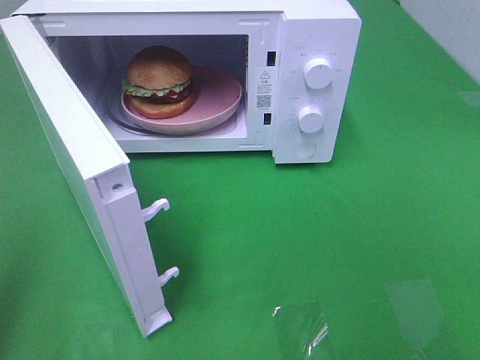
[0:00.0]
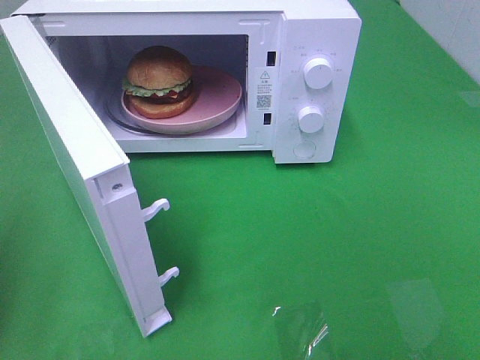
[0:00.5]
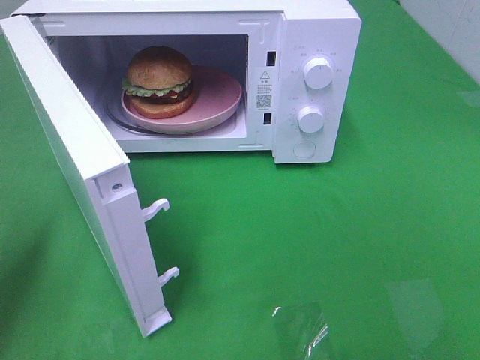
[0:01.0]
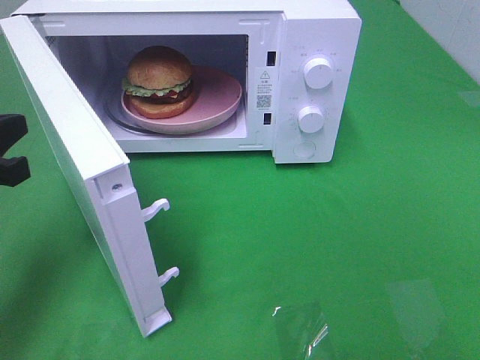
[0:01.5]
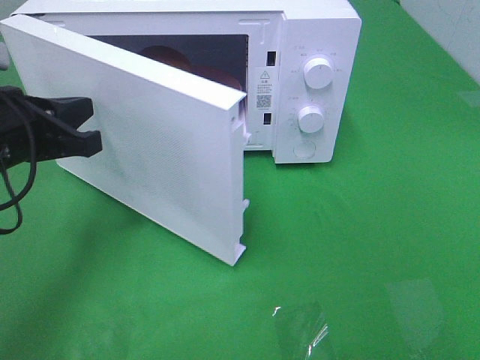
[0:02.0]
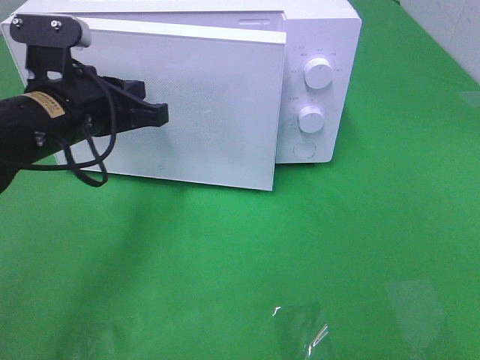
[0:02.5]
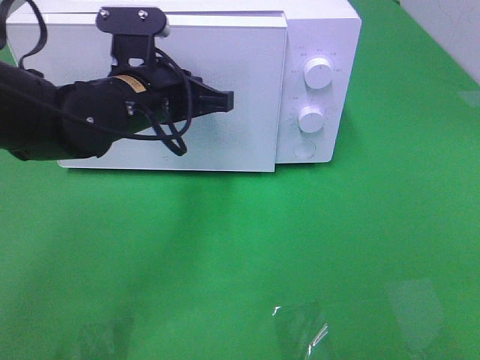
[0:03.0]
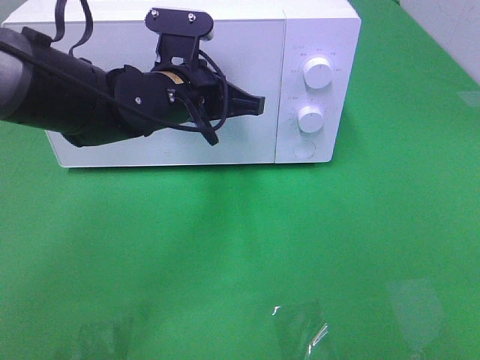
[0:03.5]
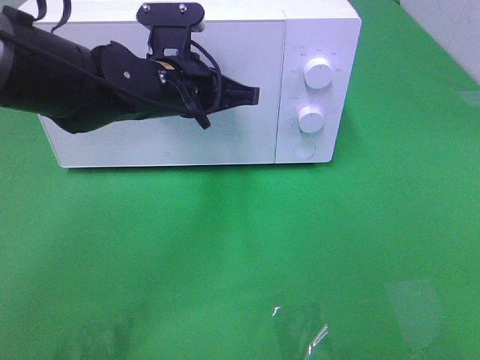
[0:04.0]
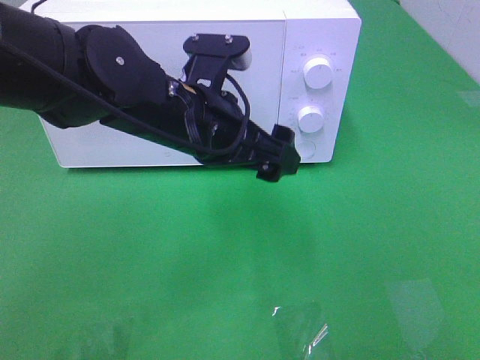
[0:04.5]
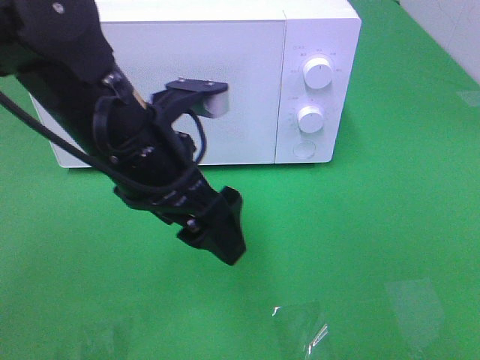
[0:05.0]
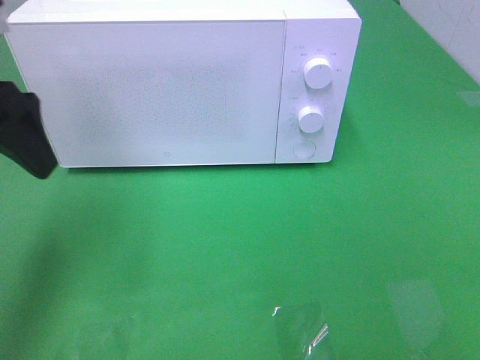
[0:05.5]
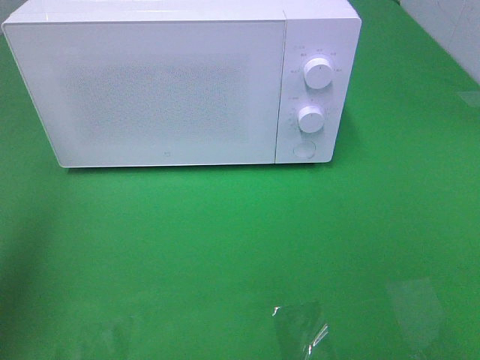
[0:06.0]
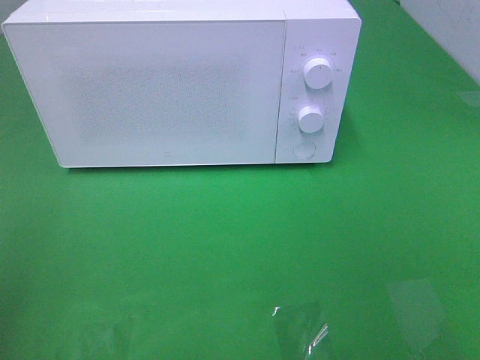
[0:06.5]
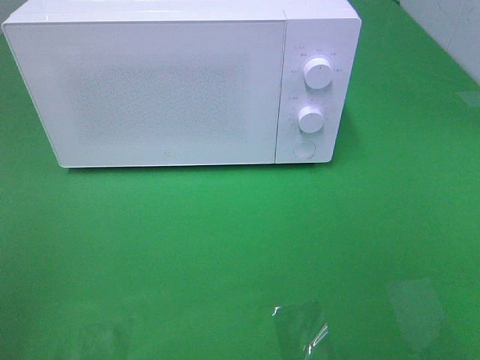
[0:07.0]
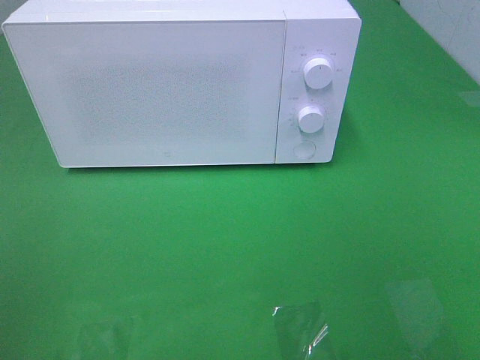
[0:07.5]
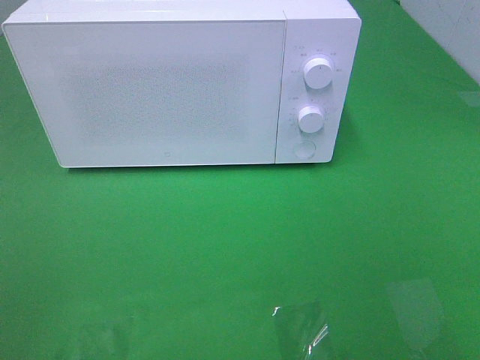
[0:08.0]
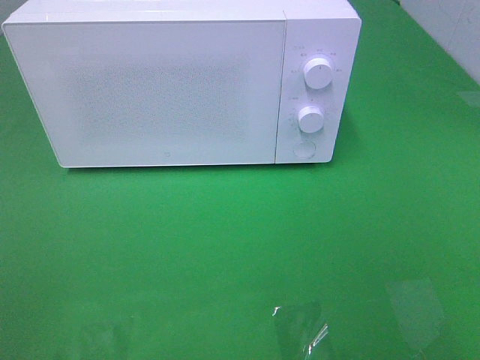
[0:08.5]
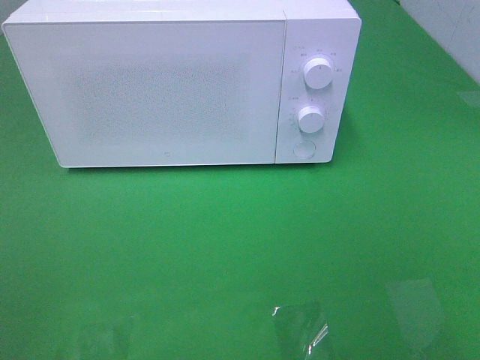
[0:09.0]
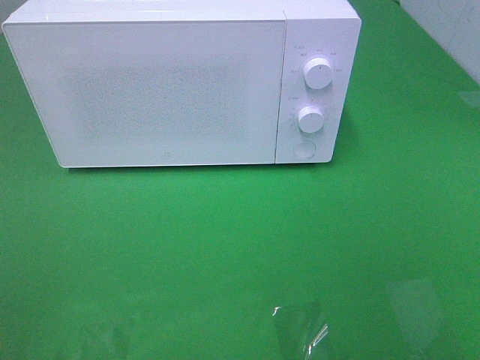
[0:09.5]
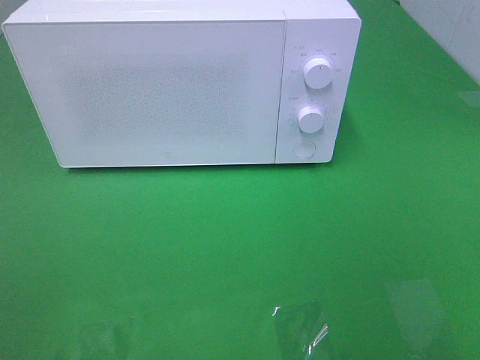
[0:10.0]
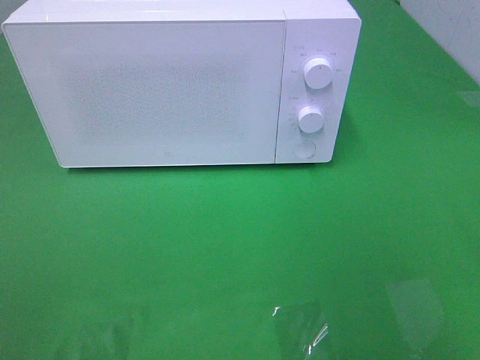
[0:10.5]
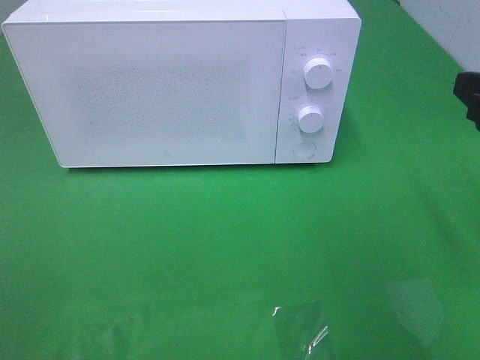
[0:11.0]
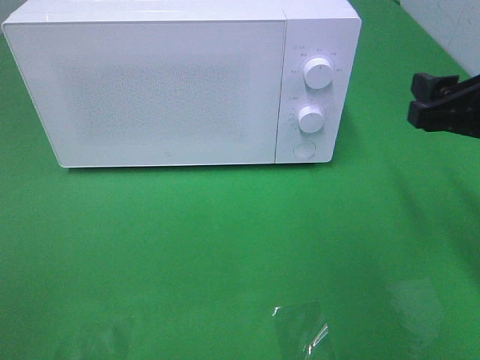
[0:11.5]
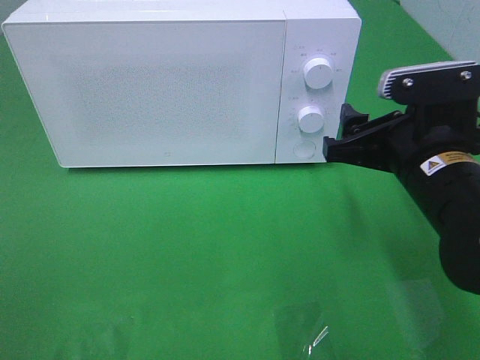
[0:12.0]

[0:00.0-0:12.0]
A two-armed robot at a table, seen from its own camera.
Task of the whole recording: Heat the burger.
Step, 0:00.0 to 0:04.0: Left hand: close the microwave door.
0:00.0 to 0:02.0: The left gripper travels forward, downward and to the right by roughly 25 cm.
0:02.0 to 0:04.0: The left gripper shifts approximately 20 cm to the right and forward.
0:04.0 to 0:06.0: The left gripper moves to the left, backward and upward, about 35 cm, and opens up.
0:06.0 to 0:08.0: The left gripper heads backward, covering approximately 20 cm.
0:10.0 to 0:12.0: The right gripper goes roughly 30 cm forward, downward and to the left.

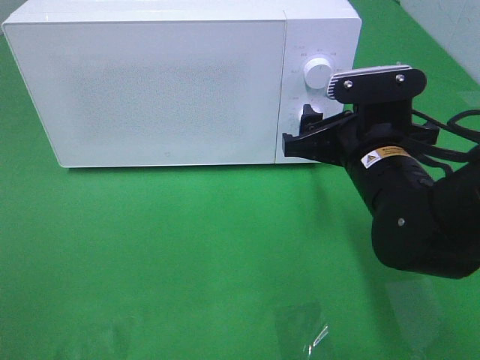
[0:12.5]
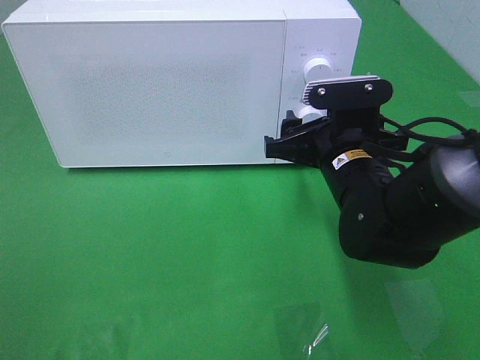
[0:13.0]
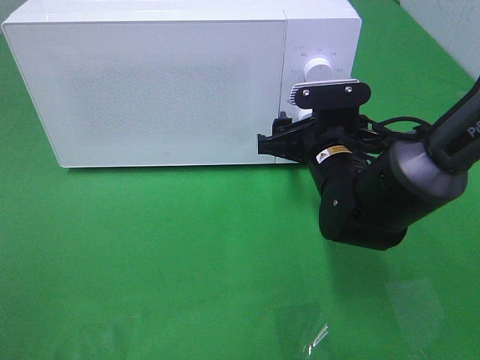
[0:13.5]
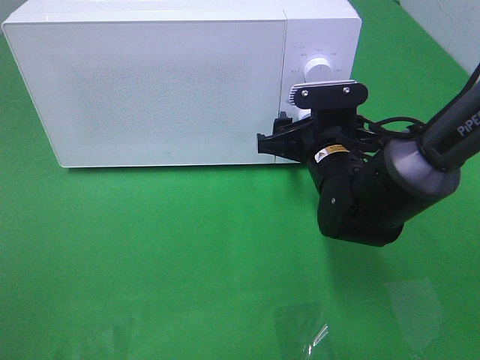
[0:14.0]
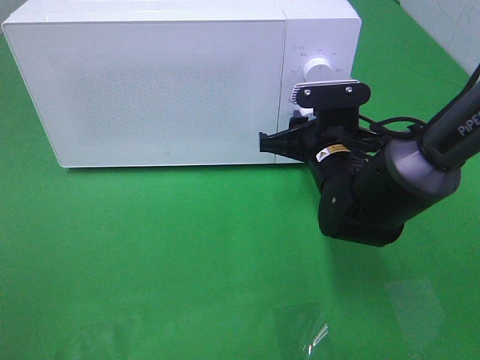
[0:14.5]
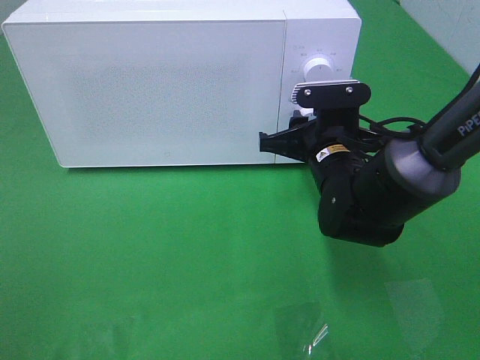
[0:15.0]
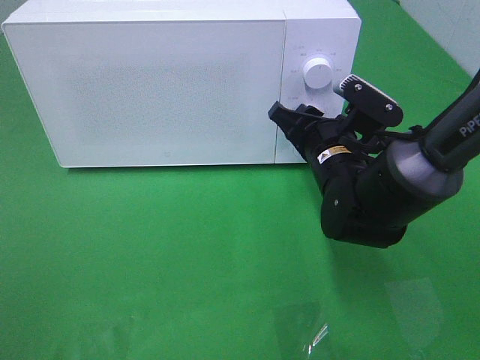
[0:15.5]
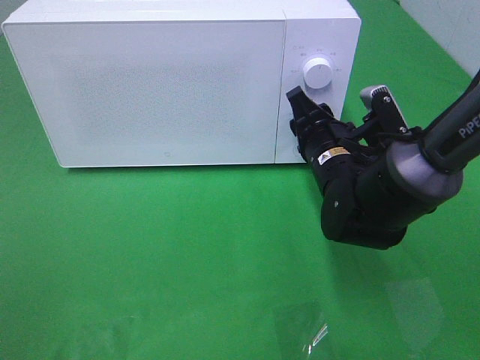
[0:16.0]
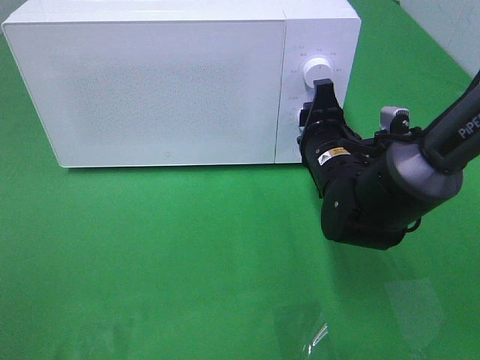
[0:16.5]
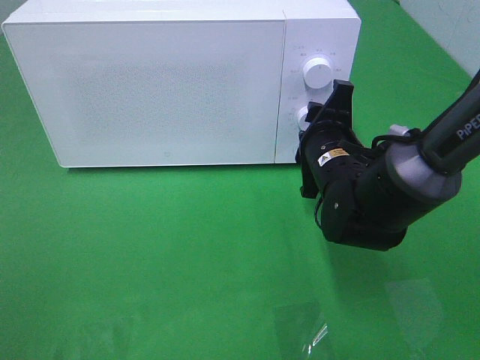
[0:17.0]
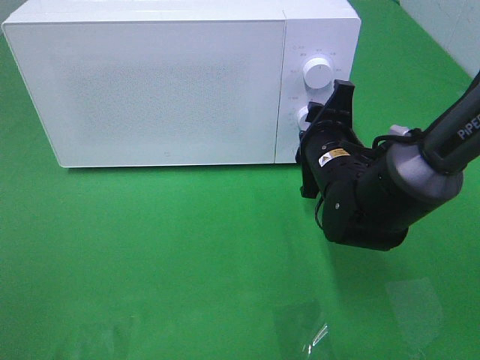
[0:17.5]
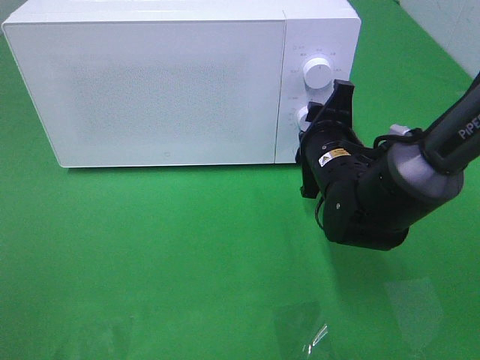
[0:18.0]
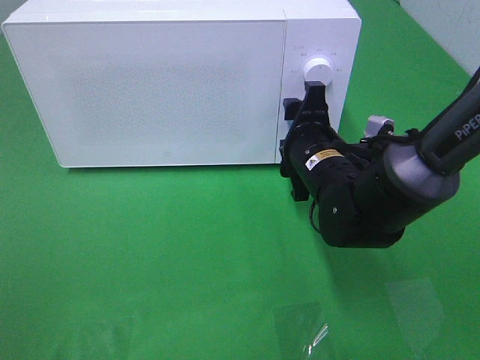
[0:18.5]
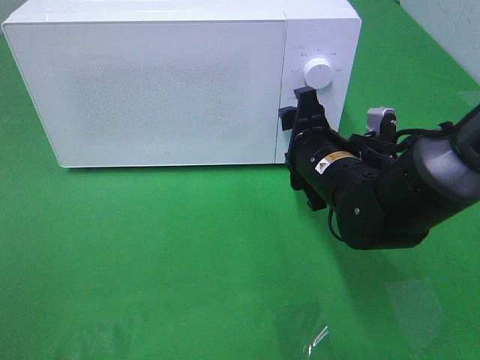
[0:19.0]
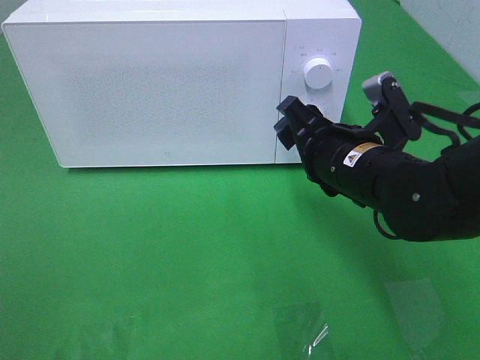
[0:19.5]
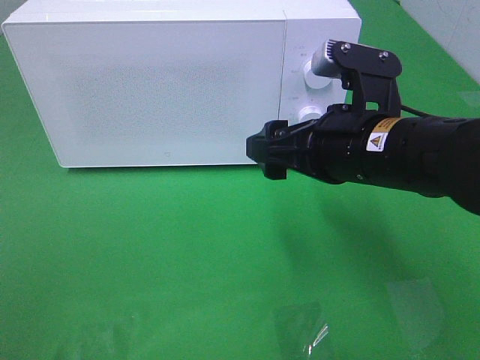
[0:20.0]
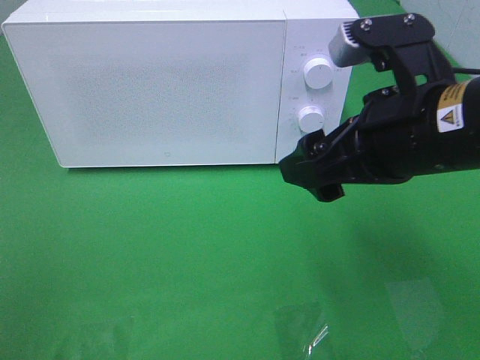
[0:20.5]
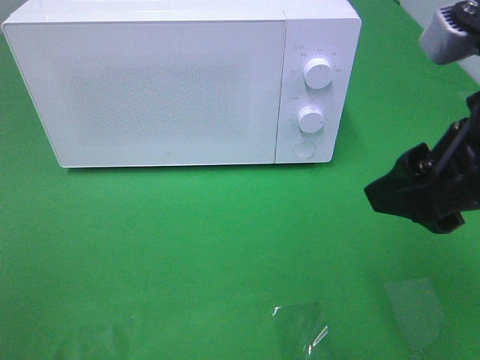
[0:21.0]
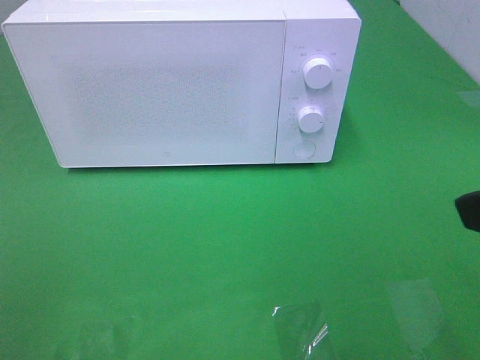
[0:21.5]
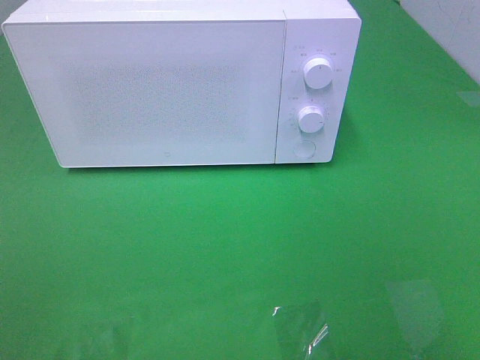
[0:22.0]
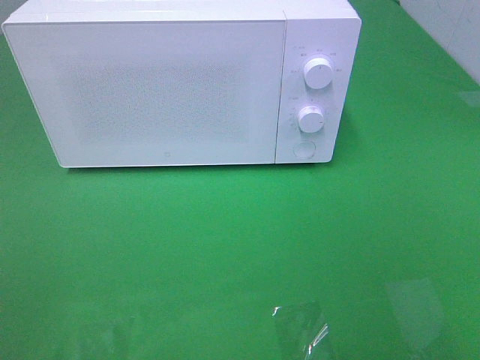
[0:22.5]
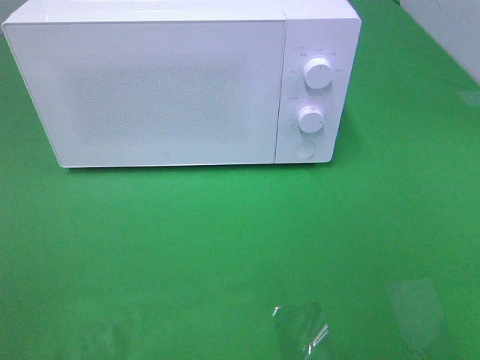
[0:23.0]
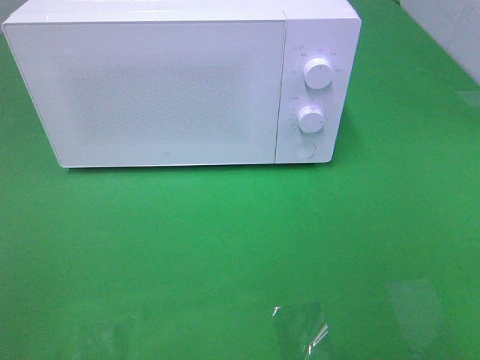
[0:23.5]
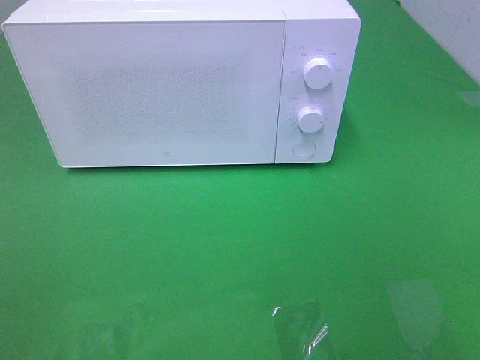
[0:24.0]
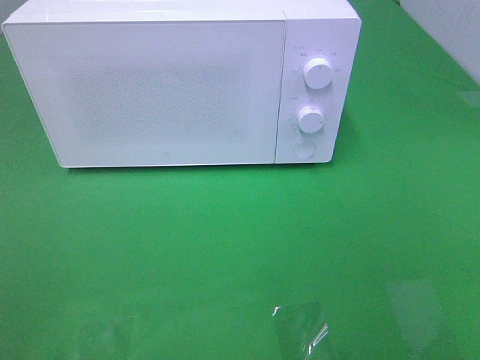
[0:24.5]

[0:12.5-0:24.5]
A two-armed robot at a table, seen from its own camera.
Task of the whole recording: Heat the burger.
Step, 0:12.5 to 0:18.0: Right hand: twist timer button.
0:12.5 to 0:14.5: The right gripper heads forward, covering about 5 cm, and closes its fingers.
0:16.5 to 0:18.5: The grippers stay close to where they were, moving slightly.
0:18.5 to 0:20.5: The right gripper heads upward and backward, covering roughly 20 cm.
0:20.5 to 0:22.5: The right gripper moves backward and to the right, about 25 cm.

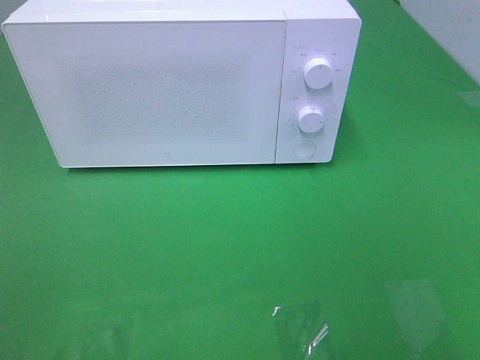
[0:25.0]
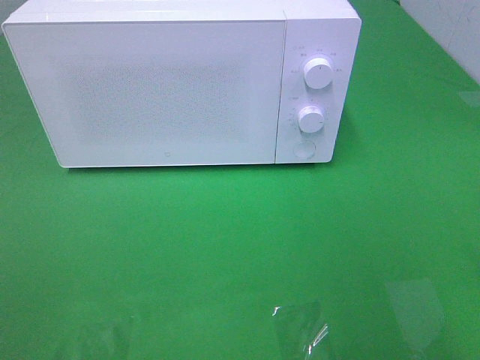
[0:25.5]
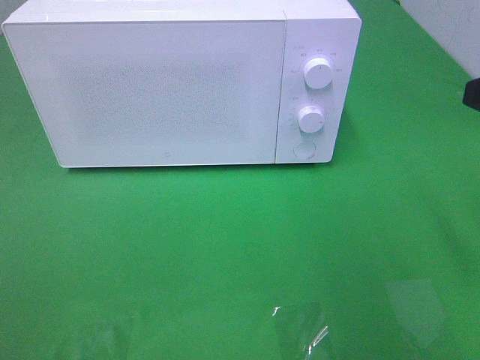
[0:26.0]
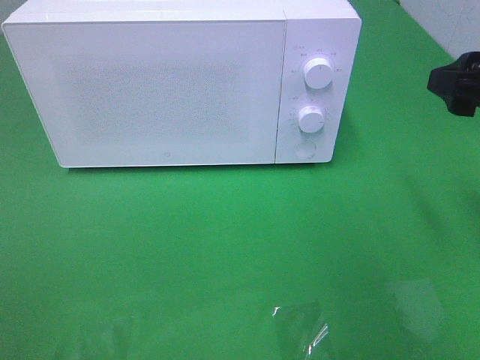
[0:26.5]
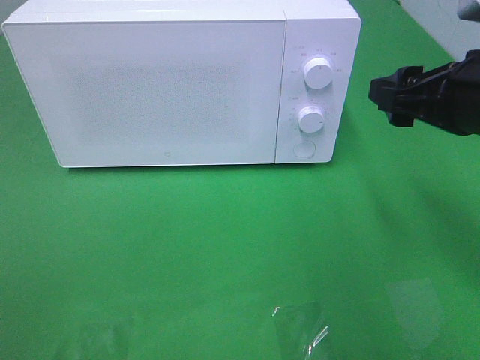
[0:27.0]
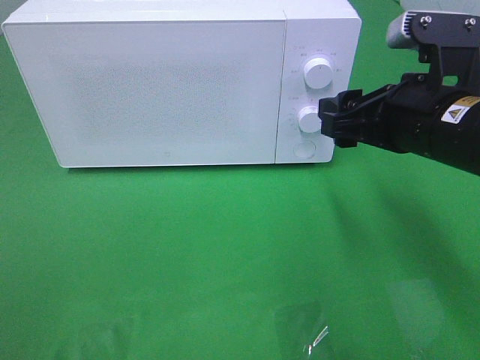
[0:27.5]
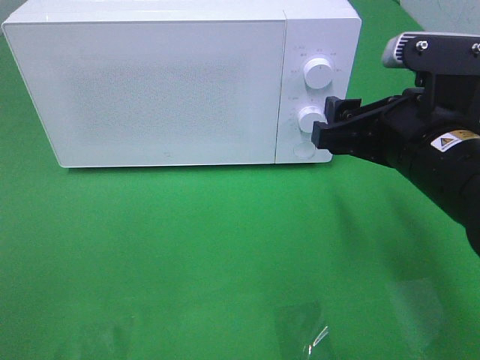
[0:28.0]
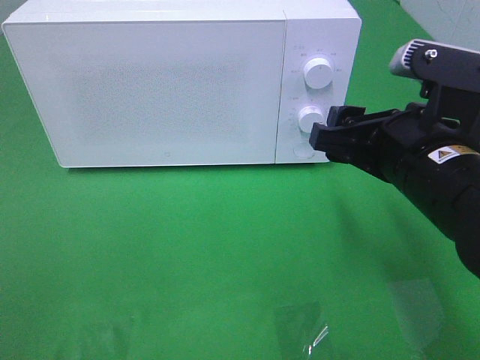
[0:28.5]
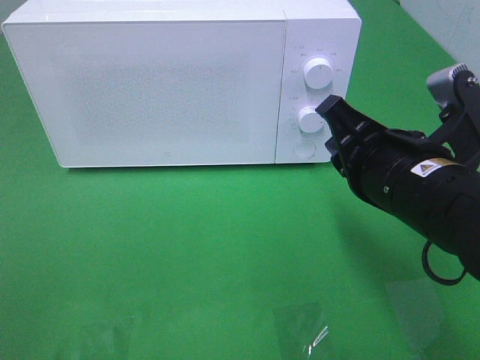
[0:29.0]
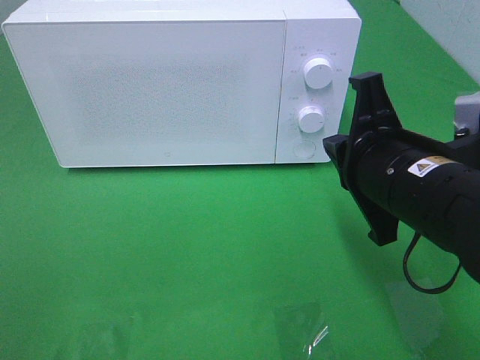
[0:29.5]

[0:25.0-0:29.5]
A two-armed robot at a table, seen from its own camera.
Task of the whole recording: Heat the burger.
0:25.0 to 0:27.0: The right gripper travels forward by approximately 20 cm.
0:27.0 to 0:29.5: The right gripper travels to the left by some 10 cm, and closes up.
